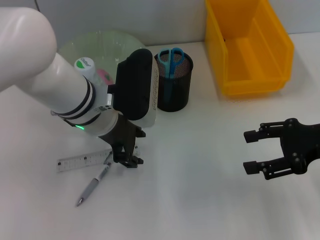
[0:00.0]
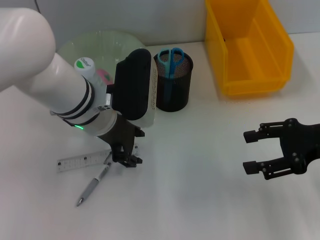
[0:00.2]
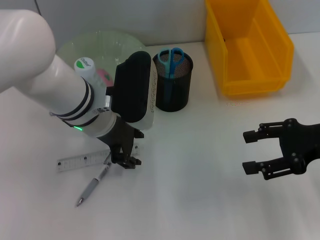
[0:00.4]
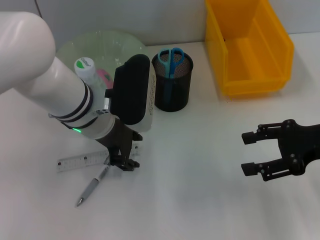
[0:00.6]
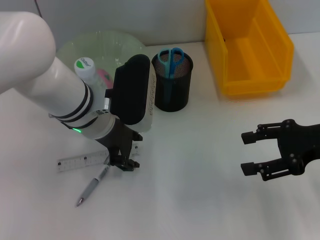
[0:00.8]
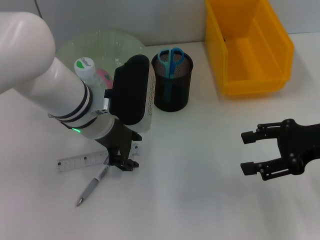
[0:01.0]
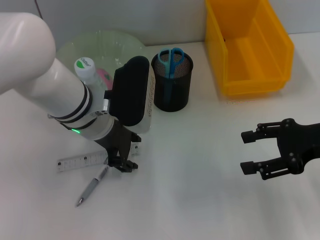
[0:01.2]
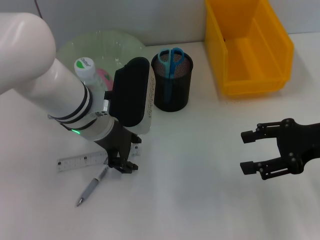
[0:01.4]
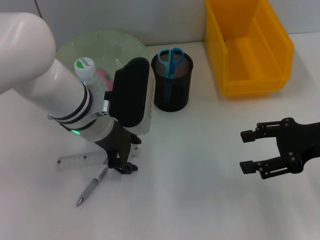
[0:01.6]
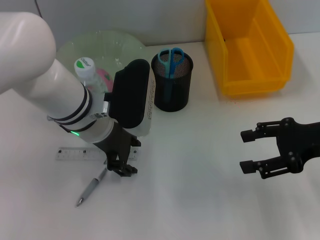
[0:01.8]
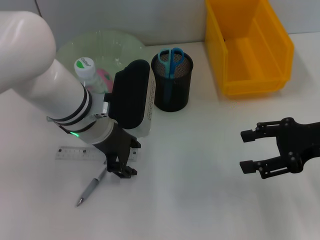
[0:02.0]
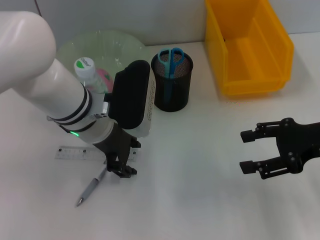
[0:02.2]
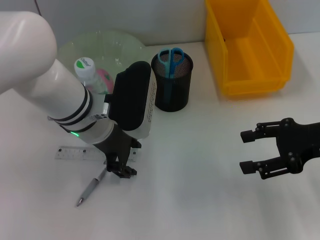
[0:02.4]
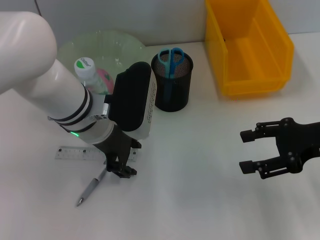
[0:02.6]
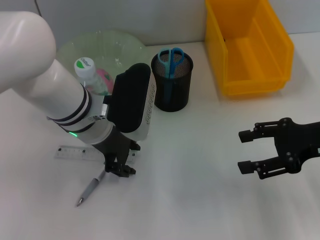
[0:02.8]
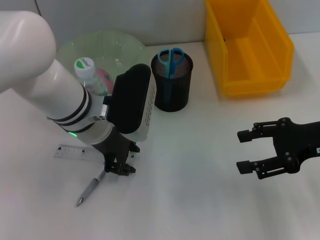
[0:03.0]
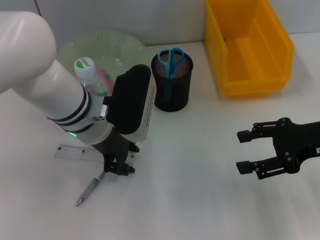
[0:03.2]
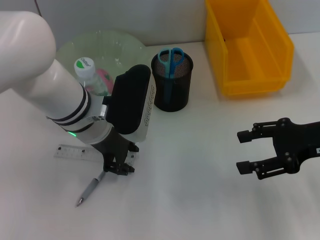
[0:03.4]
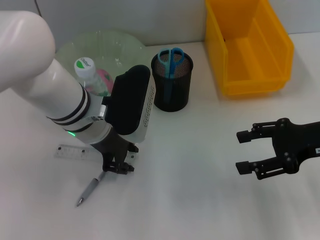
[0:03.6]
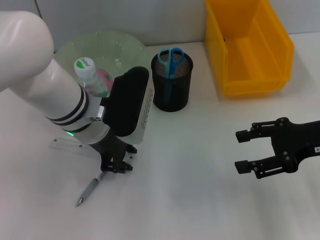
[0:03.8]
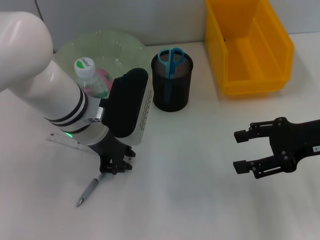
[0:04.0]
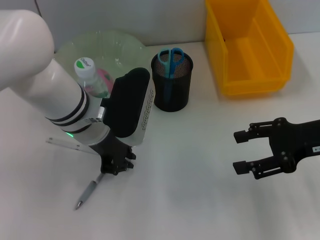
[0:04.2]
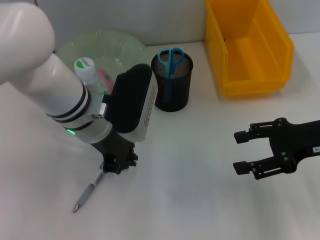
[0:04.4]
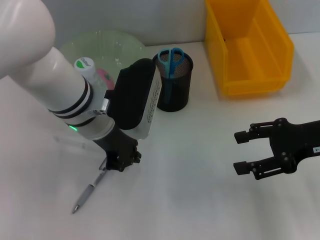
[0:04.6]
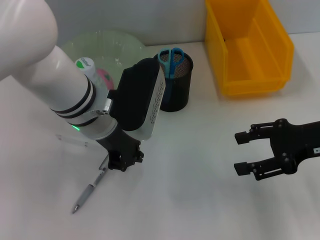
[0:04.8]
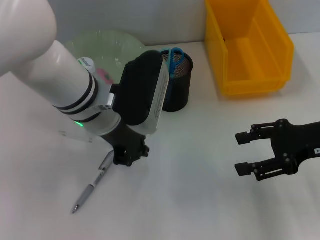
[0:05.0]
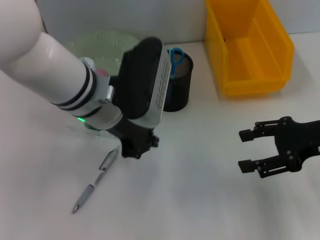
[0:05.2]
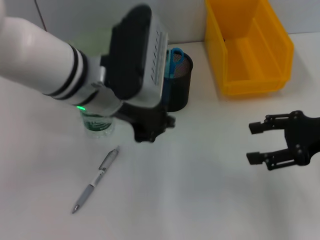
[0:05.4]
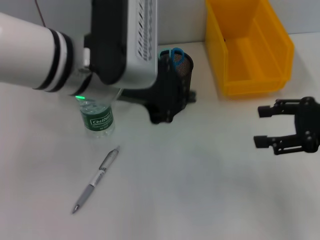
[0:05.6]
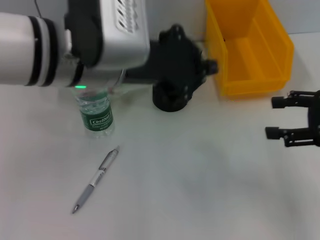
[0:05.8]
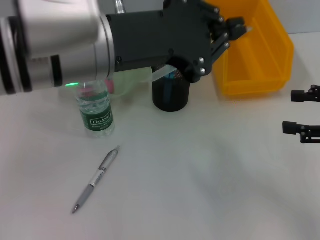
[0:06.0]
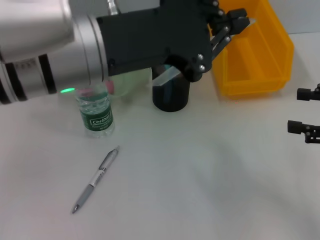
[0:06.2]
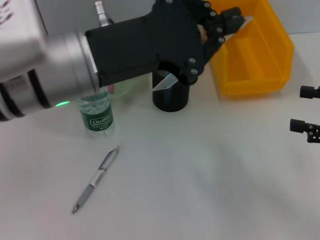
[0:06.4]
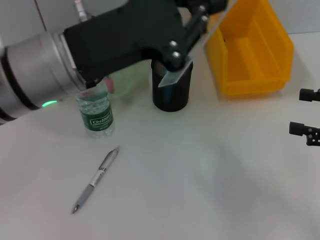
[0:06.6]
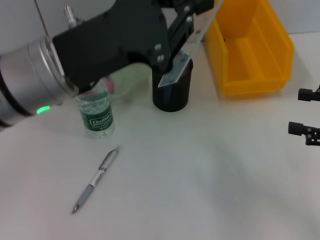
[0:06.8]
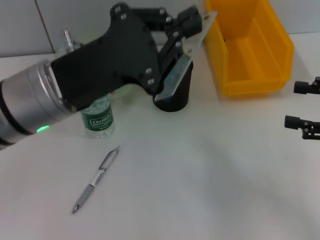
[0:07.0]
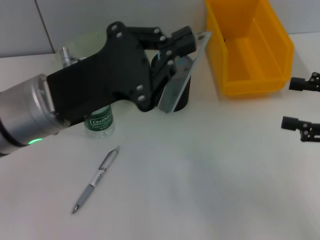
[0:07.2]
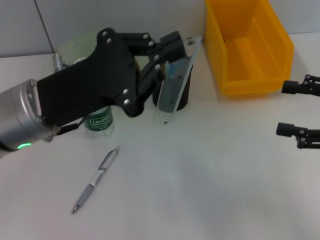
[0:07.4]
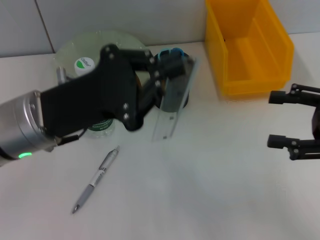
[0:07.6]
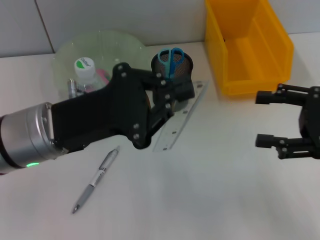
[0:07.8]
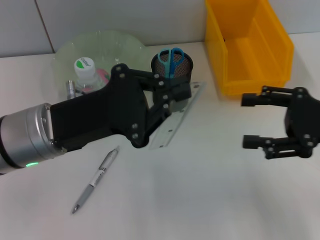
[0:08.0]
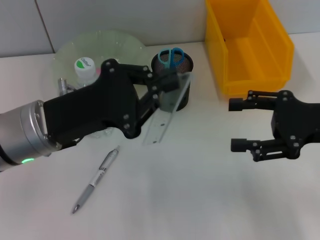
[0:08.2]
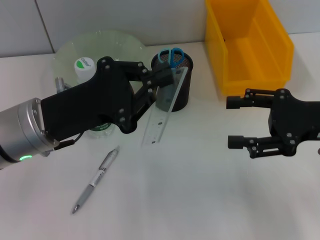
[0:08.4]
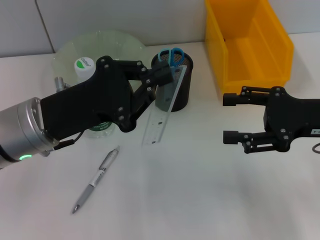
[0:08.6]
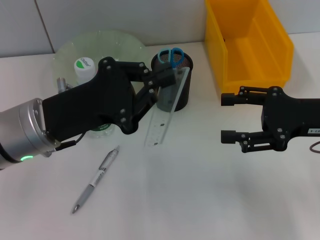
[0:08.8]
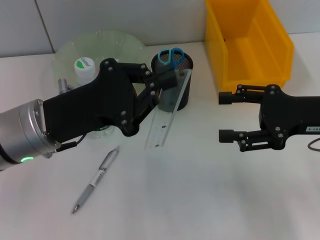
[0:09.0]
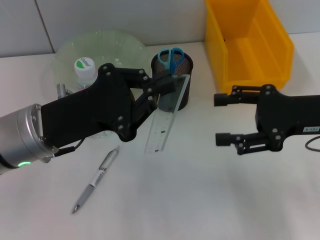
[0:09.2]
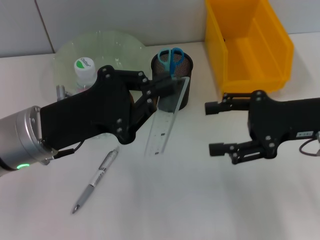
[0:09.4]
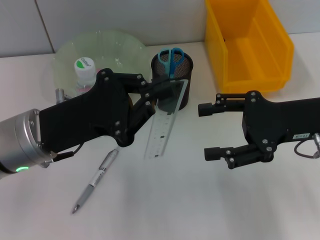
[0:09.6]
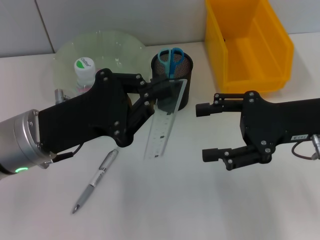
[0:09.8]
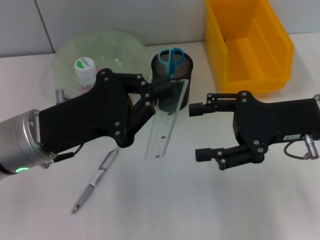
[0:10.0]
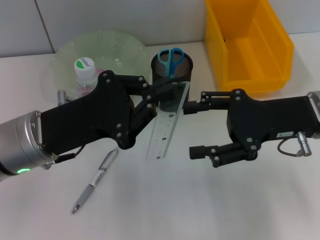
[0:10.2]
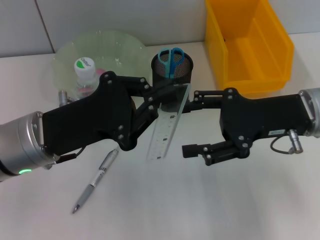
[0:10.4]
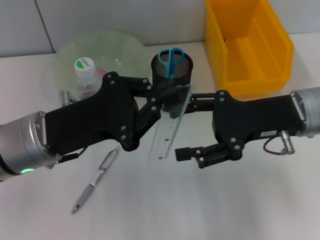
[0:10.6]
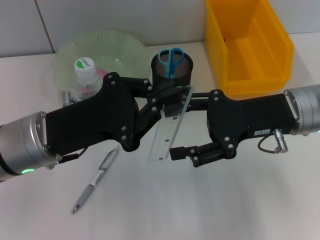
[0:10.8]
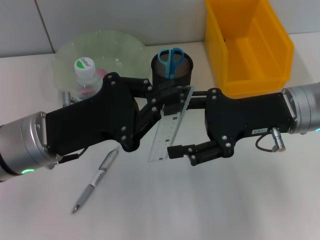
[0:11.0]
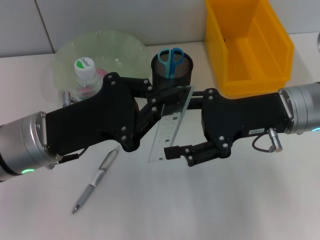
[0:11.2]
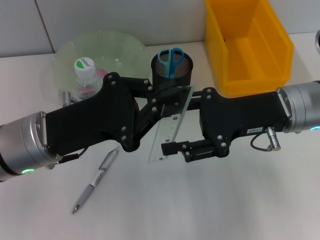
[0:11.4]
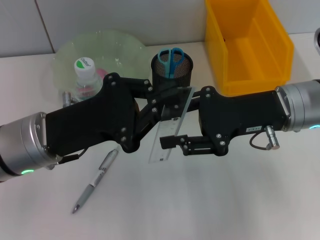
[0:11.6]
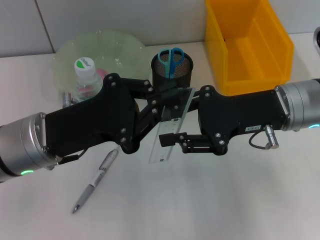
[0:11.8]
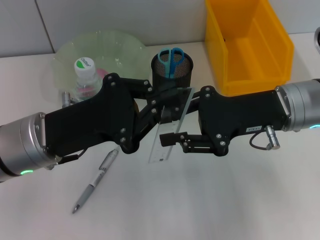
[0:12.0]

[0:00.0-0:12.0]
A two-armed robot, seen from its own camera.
Step, 0:00.0 to 0:04.4: Grab the ruler with the left hand.
0:00.0 to 0:01.6: Both grippers stay put.
0:01.6 to 0:03.0: Both grippers stay put.
0:03.0 to 0:04.4: The left gripper closes its fingers.
0:04.4 to 0:06.0: The left gripper moves upward and backward, some 15 cm. The right gripper heads to the right, covering about 5 cm.
0:06.0 to 0:07.6: The left gripper moves downward and to the left, about 10 cm.
0:07.6 to 0:09.0: The right gripper moves roughly 5 cm.
0:09.0 to 0:10.4: The right gripper heads to the left, covering approximately 5 cm.
0:10.4 to 0:12.0: The right gripper closes.

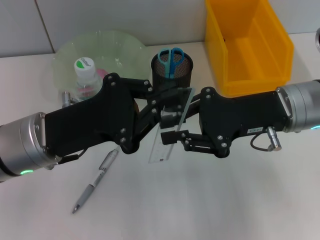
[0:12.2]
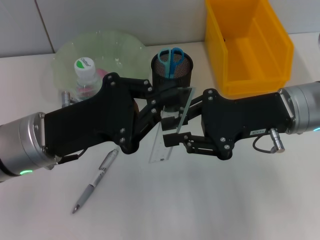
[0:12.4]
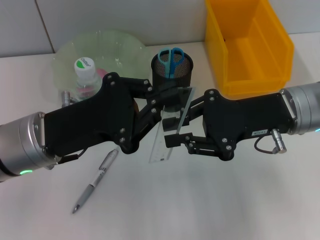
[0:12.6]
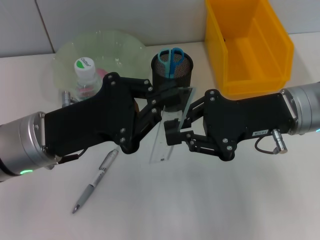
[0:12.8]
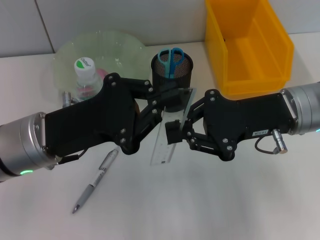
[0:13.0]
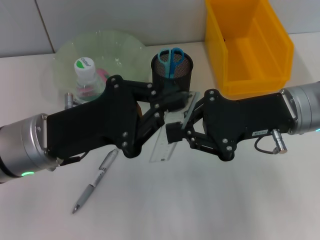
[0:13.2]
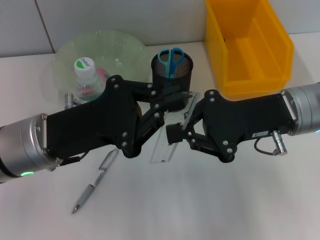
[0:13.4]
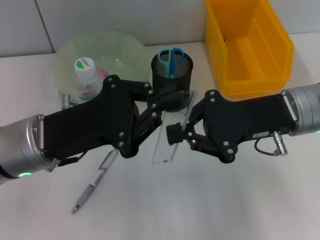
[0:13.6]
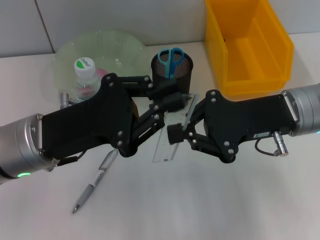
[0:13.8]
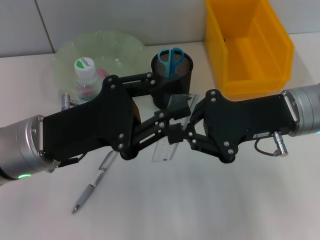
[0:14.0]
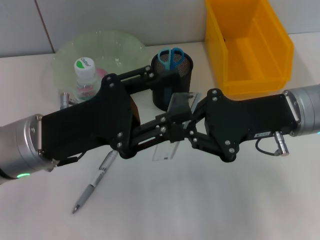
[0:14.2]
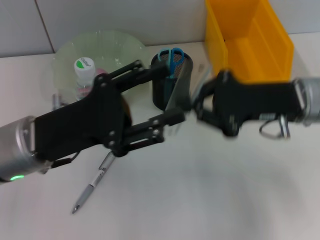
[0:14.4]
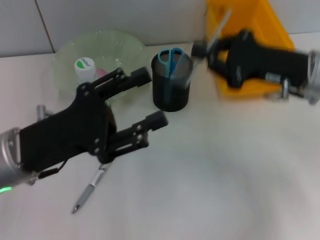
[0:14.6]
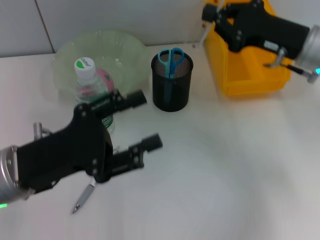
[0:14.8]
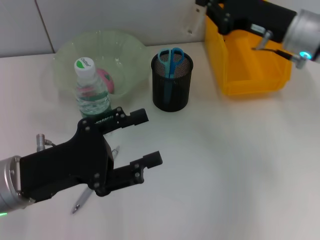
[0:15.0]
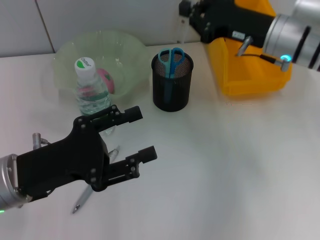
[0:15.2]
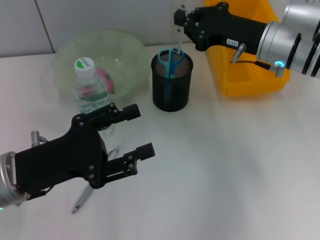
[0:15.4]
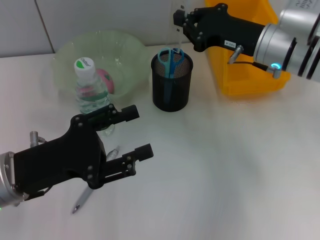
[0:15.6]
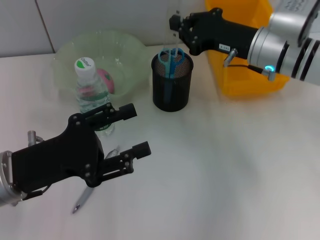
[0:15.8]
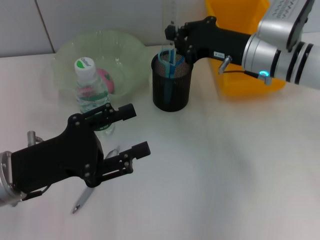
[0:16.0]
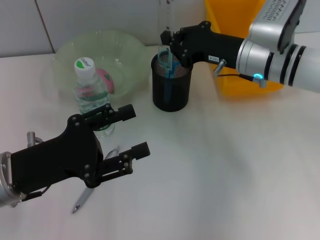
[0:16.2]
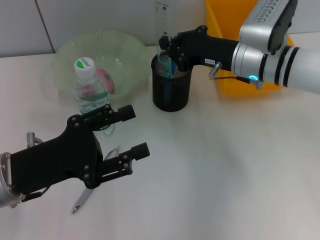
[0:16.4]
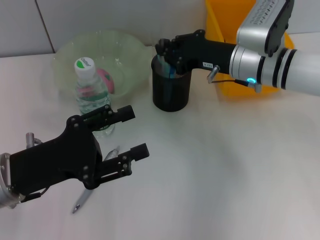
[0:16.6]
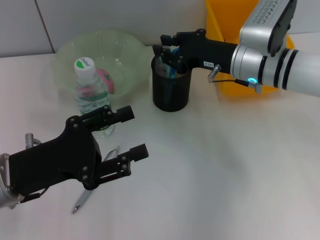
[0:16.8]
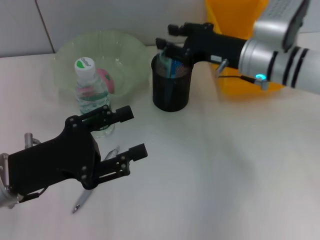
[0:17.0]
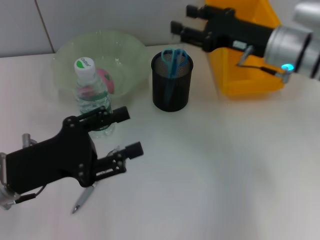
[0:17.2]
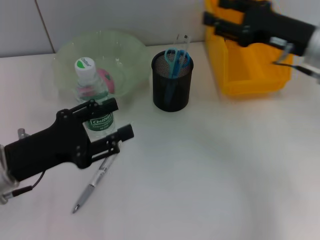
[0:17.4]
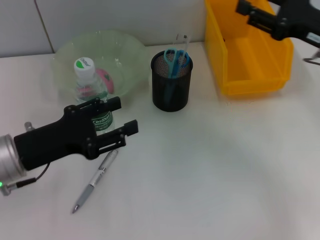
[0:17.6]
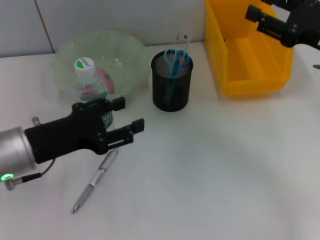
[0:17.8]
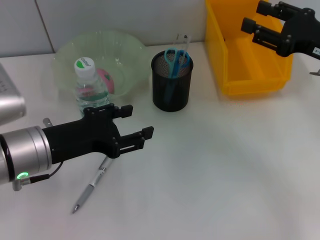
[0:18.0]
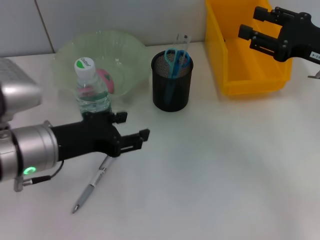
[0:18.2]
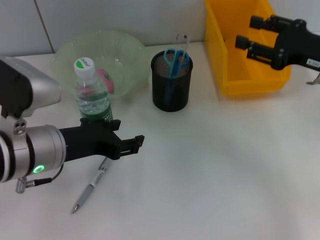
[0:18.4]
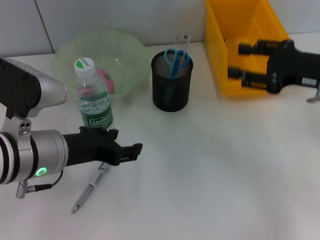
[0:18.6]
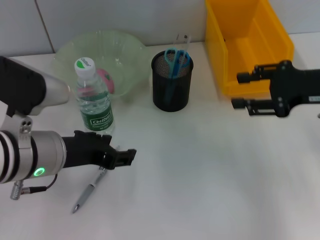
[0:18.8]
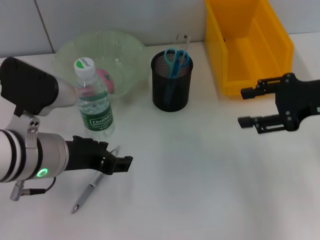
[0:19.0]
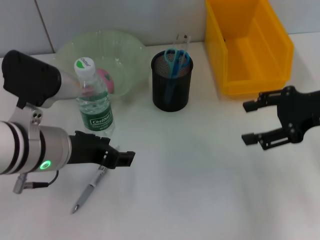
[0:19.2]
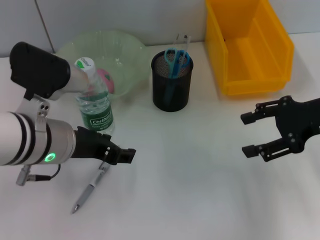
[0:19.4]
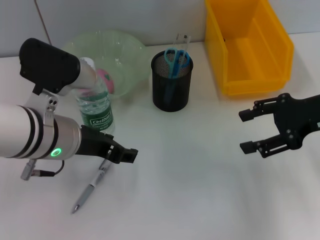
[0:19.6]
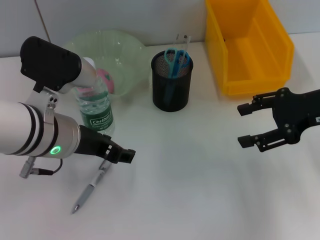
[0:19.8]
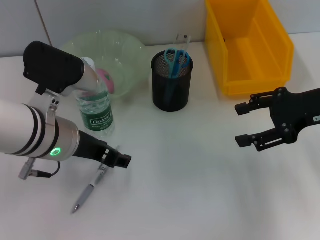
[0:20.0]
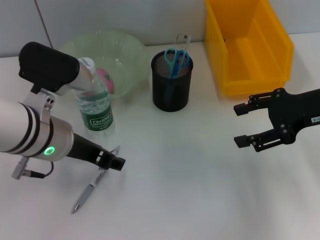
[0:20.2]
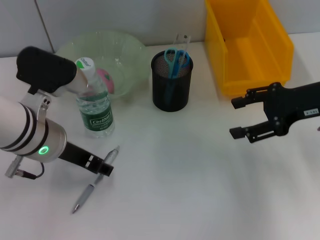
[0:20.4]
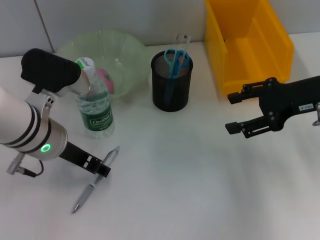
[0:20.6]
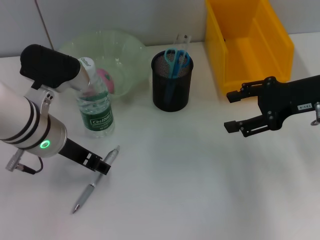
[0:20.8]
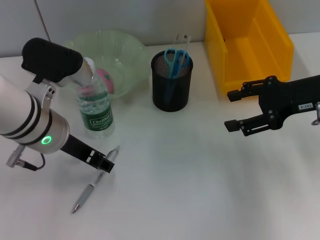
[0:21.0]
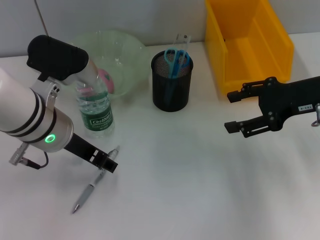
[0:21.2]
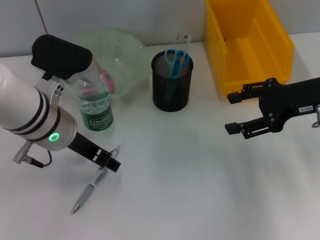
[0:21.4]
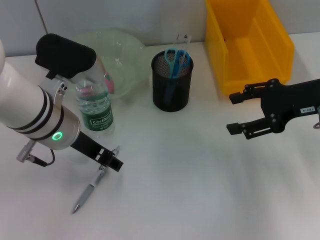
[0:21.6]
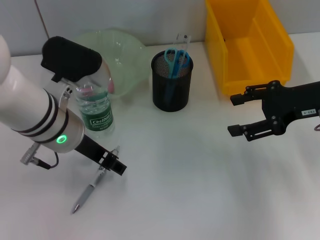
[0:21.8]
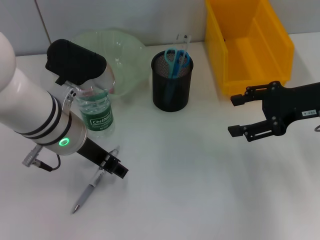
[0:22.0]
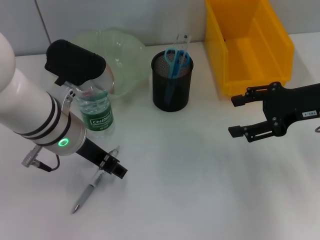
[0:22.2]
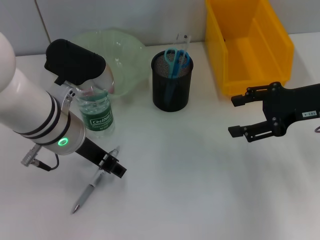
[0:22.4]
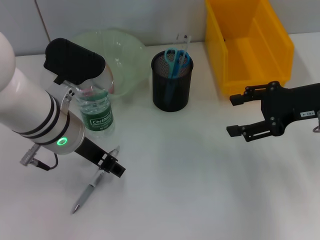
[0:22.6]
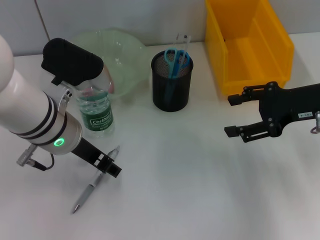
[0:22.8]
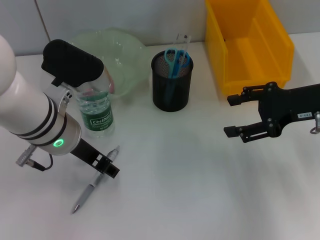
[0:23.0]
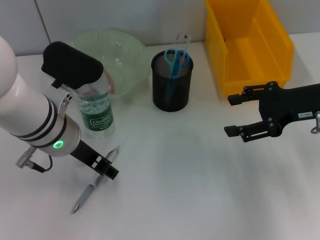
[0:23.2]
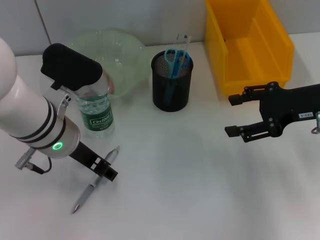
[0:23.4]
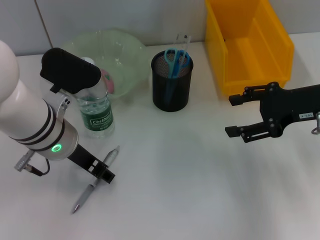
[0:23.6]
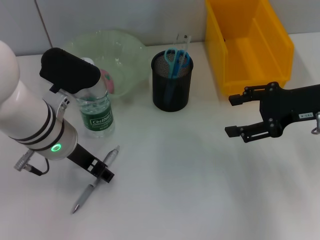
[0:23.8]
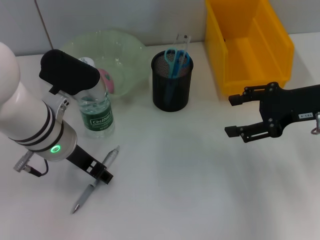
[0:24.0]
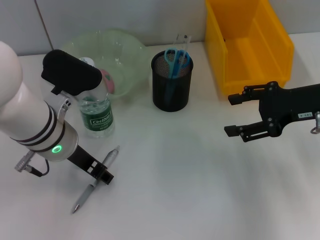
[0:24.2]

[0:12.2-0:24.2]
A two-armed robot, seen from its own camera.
Step, 0:13.8 to 0:16.8: Place the ruler into the pen holder with the right hand.
0:12.2 to 0:13.8: Neither gripper changes place.
0:13.8 to 0:15.2: The left gripper changes place by about 5 cm, and opens its fingers. The right gripper goes some 10 cm forward.
0:15.2 to 0:16.6: The right gripper ends up some 5 cm from where it was.
0:16.6 to 0:18.2: The right gripper heads to the right and backward, covering roughly 15 cm, and opens; the left gripper ends up about 5 cm from where it was.
0:19.8 to 0:24.2: The grippers stay close to where they were, moving slightly.
